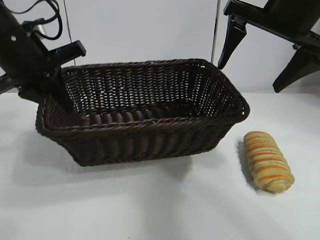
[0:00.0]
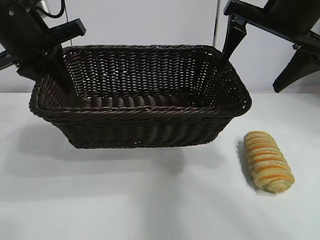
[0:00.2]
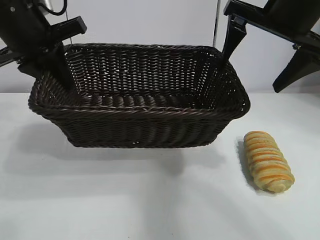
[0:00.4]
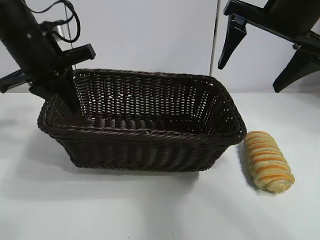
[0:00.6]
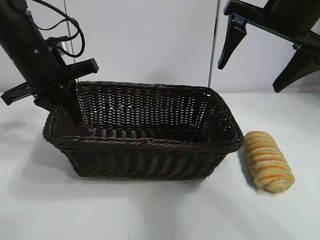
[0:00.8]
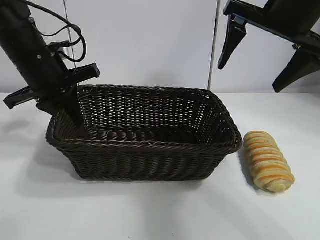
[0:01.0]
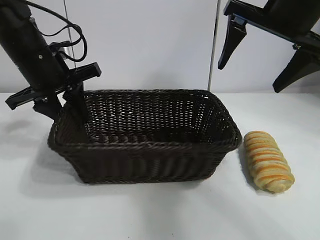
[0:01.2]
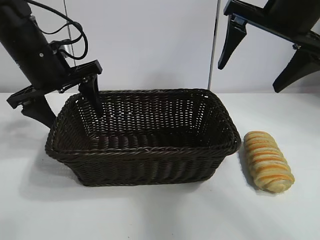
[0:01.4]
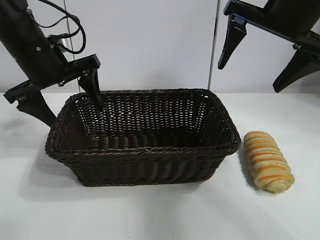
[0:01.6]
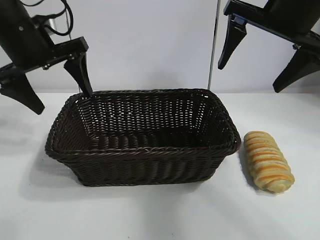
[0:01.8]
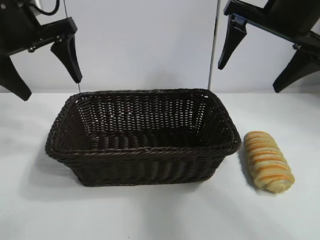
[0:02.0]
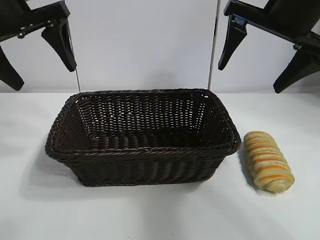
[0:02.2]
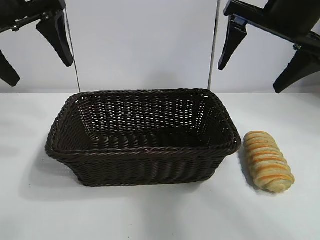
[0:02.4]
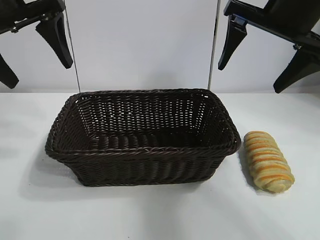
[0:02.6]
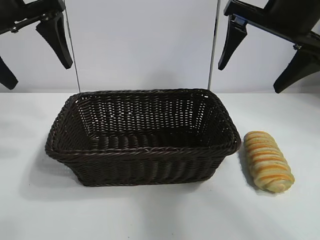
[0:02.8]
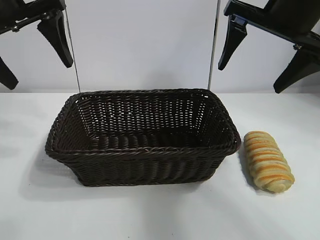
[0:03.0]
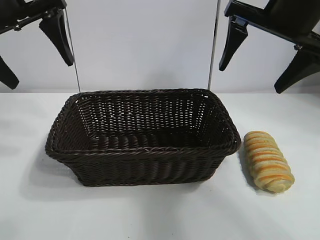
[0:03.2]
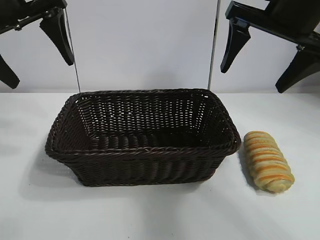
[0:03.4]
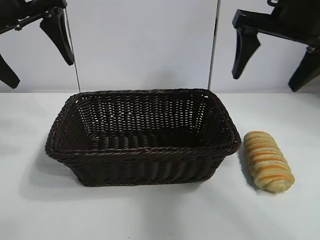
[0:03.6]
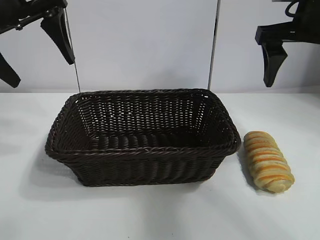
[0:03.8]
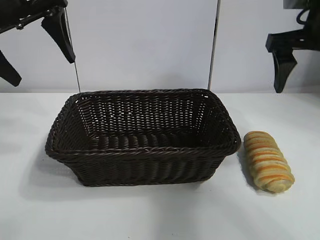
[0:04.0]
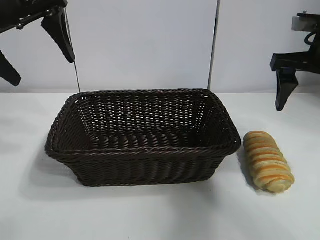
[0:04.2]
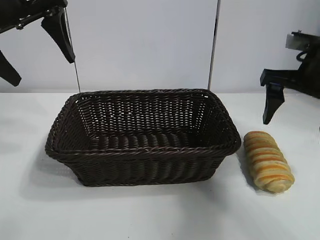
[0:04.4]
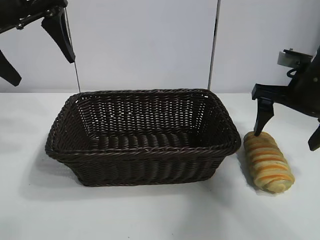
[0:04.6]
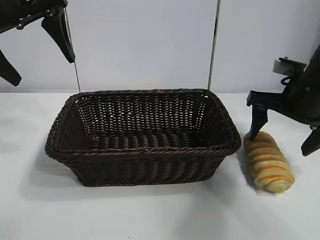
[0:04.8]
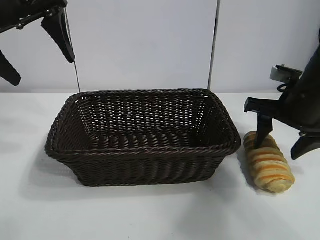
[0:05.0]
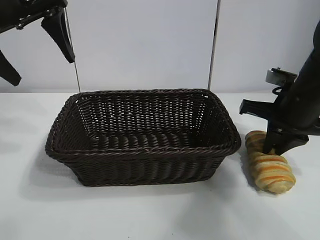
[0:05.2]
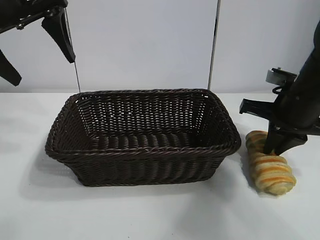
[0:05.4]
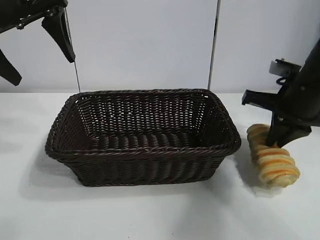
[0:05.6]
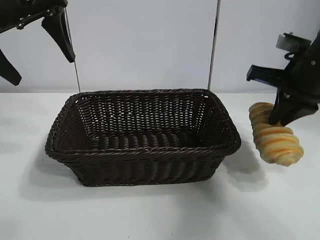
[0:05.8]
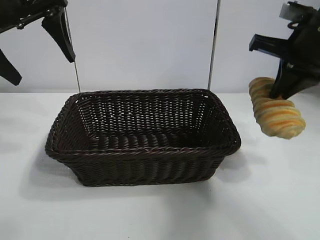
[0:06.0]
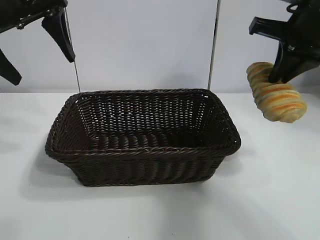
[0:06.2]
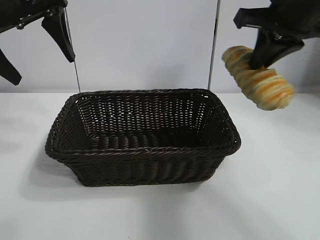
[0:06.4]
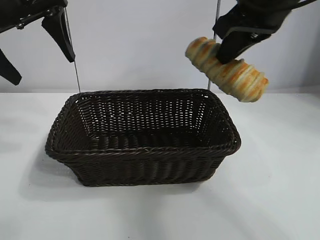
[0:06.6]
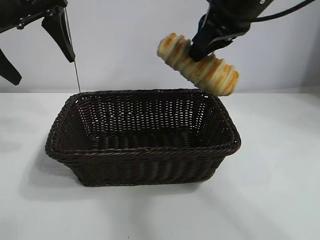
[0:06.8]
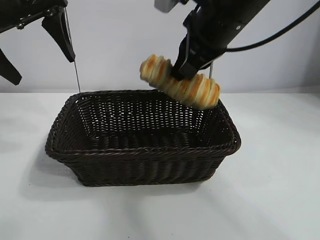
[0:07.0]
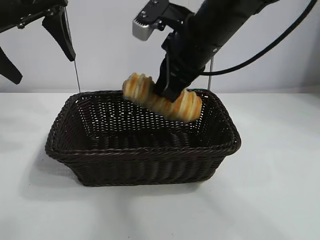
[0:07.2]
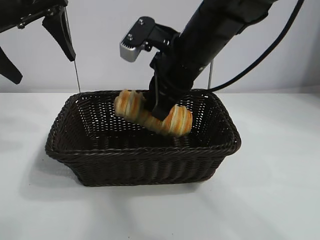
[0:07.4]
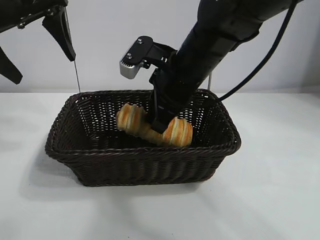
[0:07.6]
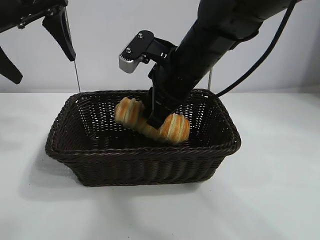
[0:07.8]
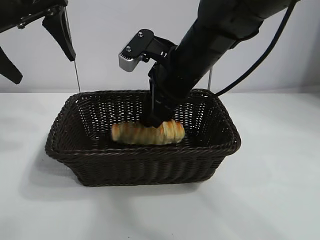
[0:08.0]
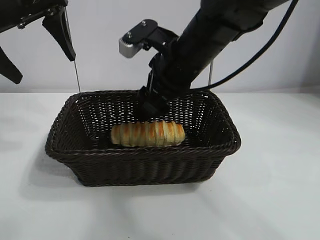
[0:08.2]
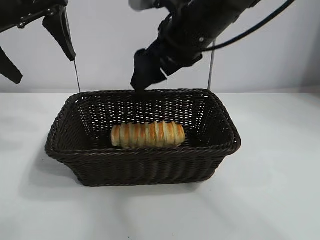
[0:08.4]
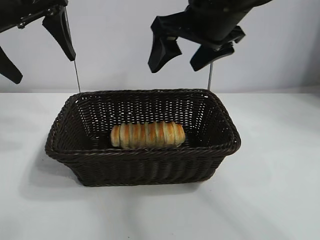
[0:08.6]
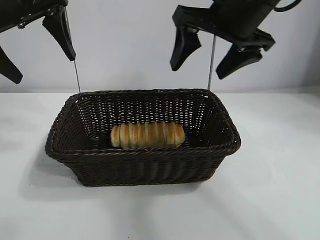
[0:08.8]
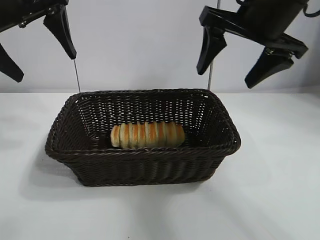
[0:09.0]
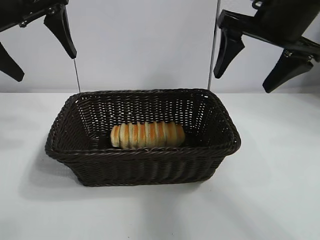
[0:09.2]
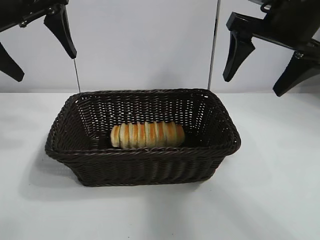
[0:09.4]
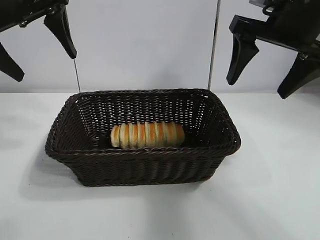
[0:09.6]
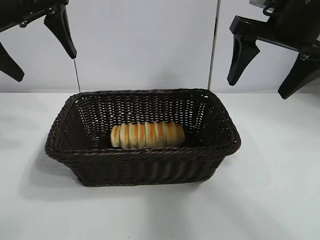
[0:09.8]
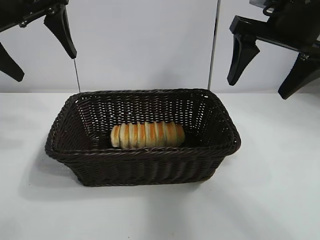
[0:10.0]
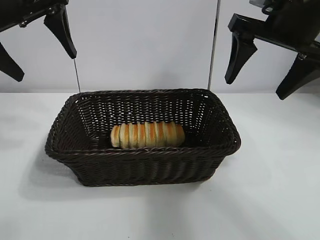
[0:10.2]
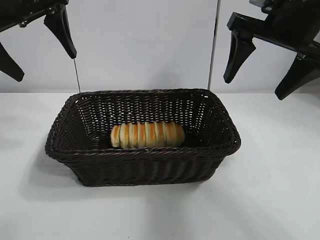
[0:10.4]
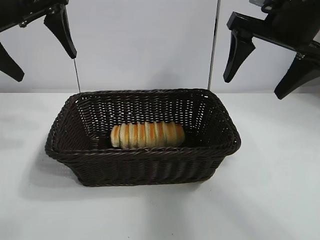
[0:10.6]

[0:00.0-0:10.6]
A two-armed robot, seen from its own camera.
Task of the whole recording: pick up the long bread and put it into the basket.
Step, 0:00.0 to 0:01.4: Place the basket in the center of the table with the left gripper.
Step, 0:01.6 to 0:05.2: Grasp the long bread with right gripper.
Step, 0:05.4 to 0:08.2: Place the long bread in the basket with right gripper.
